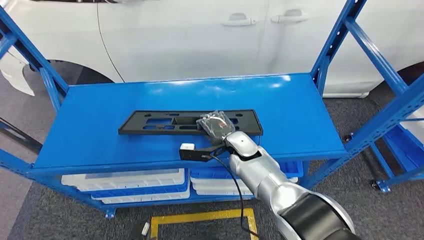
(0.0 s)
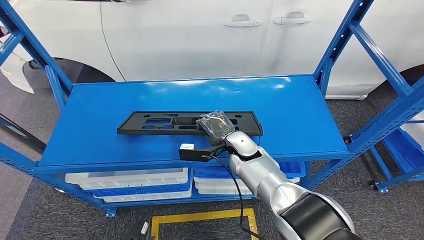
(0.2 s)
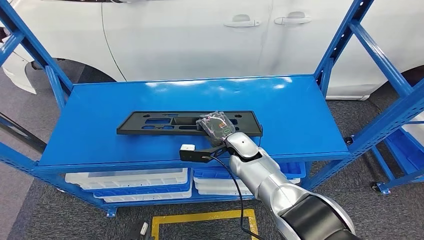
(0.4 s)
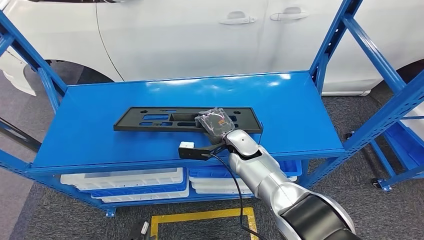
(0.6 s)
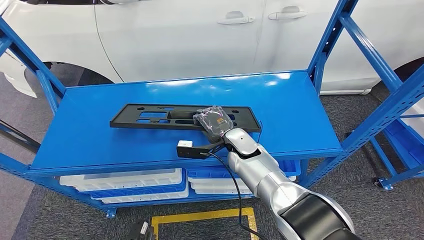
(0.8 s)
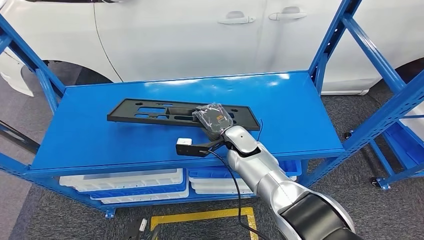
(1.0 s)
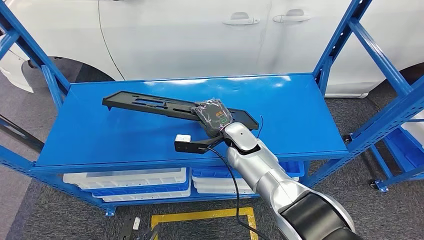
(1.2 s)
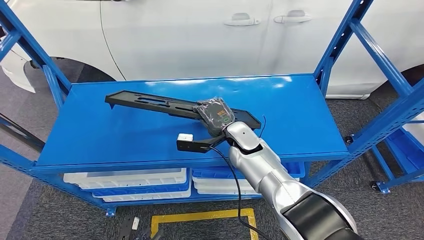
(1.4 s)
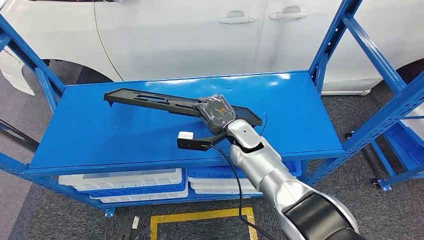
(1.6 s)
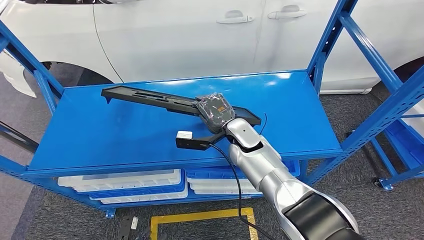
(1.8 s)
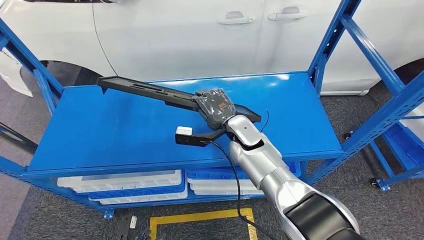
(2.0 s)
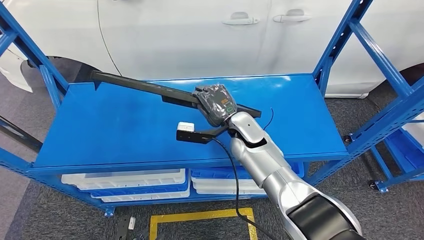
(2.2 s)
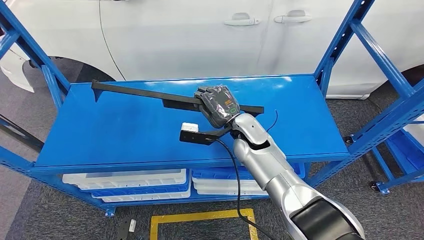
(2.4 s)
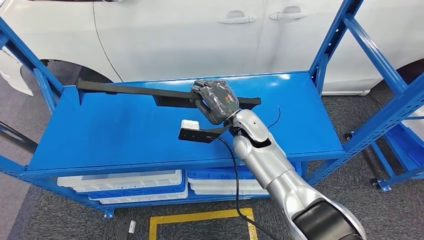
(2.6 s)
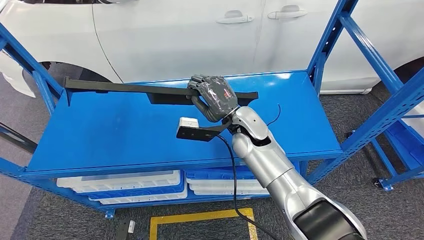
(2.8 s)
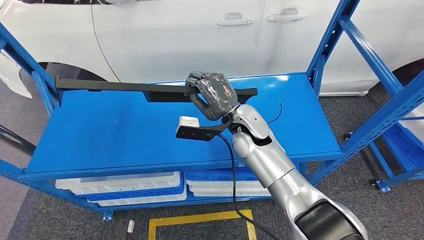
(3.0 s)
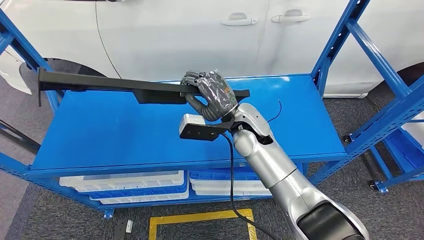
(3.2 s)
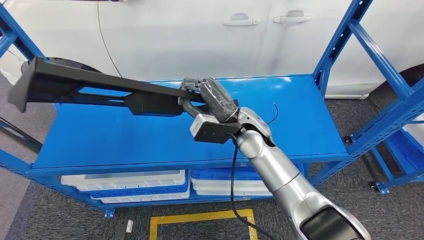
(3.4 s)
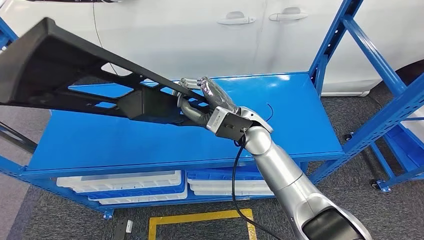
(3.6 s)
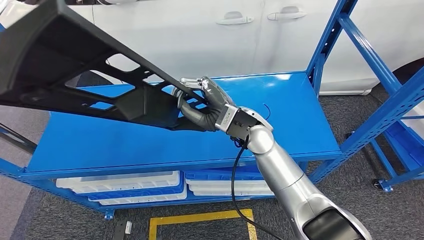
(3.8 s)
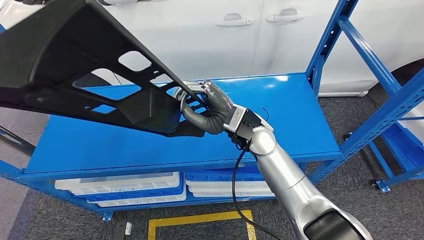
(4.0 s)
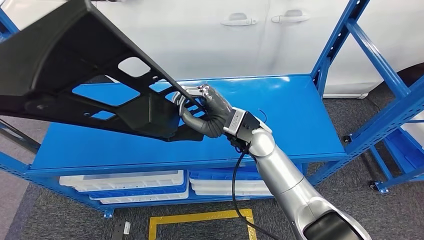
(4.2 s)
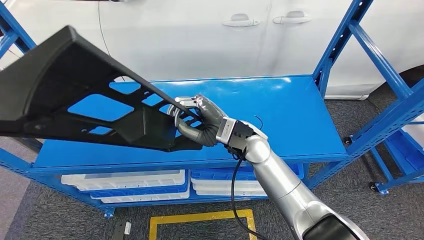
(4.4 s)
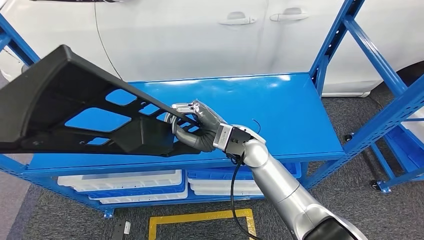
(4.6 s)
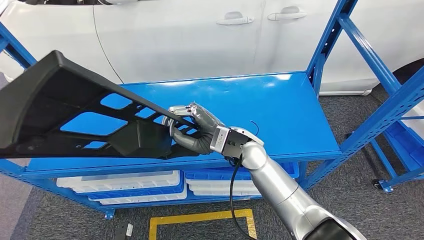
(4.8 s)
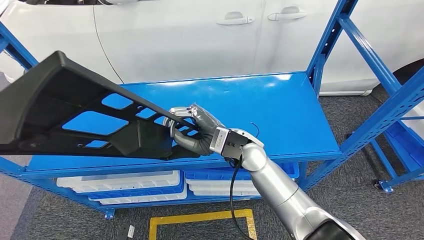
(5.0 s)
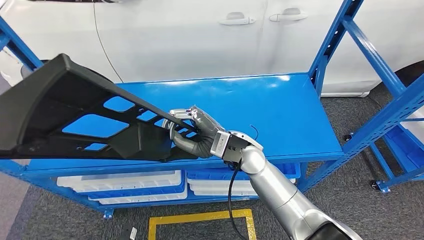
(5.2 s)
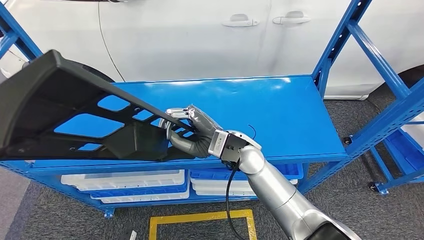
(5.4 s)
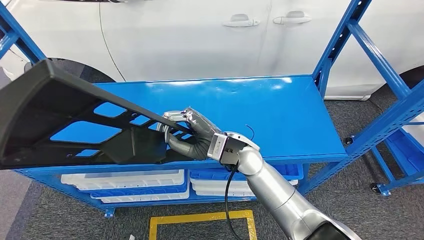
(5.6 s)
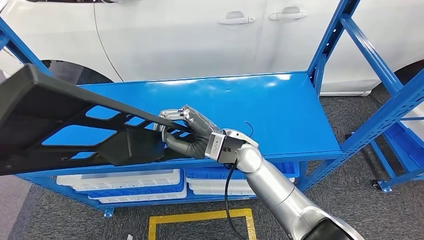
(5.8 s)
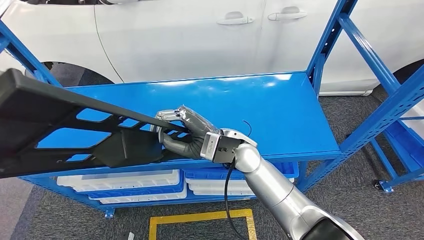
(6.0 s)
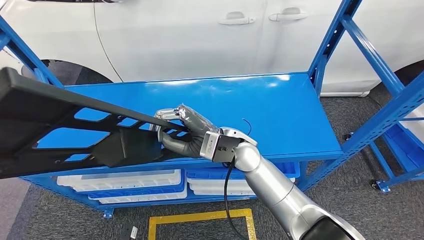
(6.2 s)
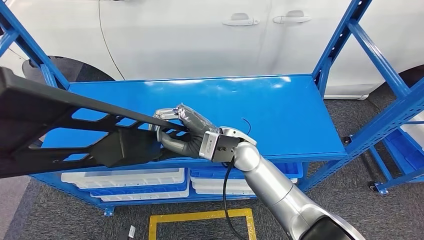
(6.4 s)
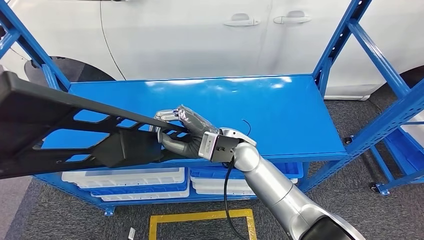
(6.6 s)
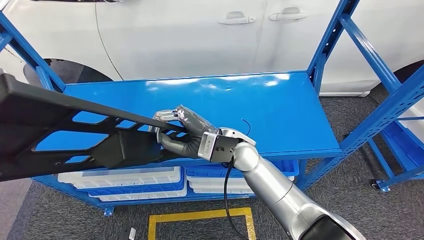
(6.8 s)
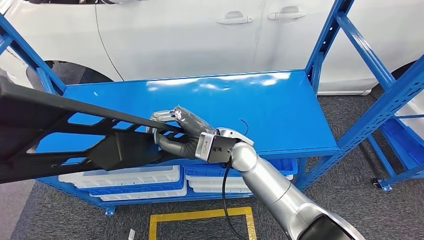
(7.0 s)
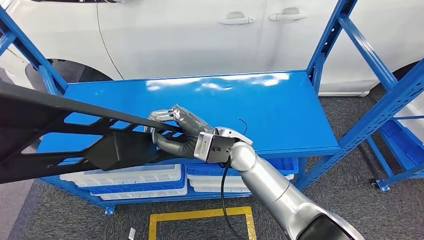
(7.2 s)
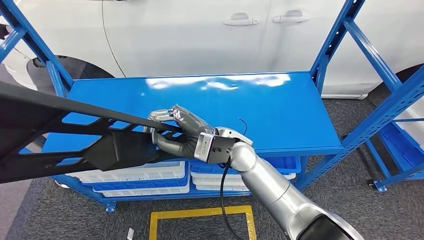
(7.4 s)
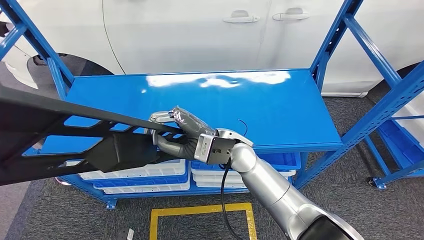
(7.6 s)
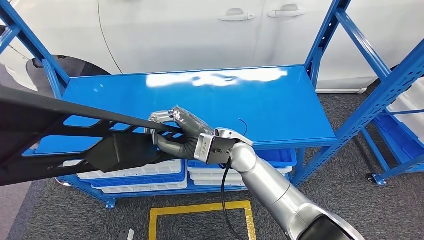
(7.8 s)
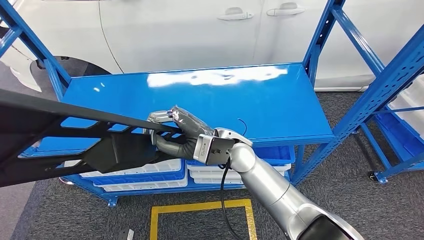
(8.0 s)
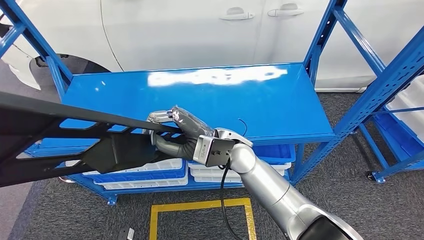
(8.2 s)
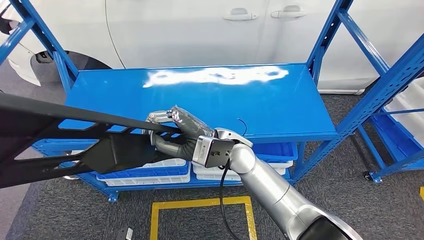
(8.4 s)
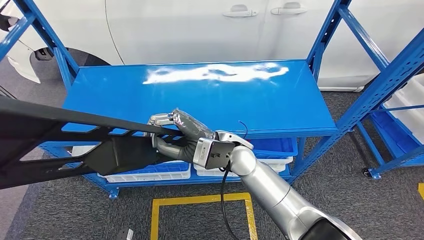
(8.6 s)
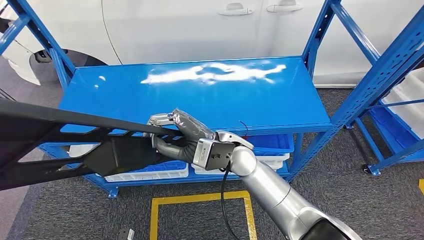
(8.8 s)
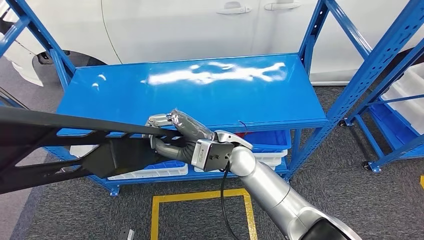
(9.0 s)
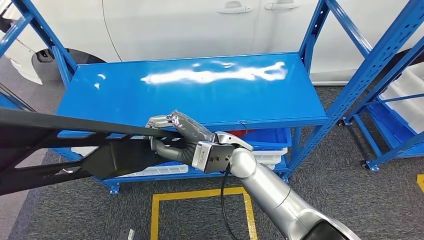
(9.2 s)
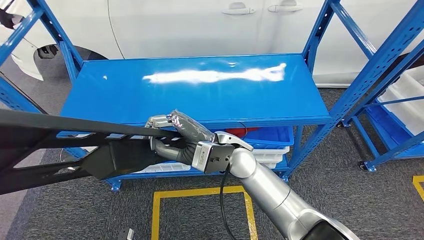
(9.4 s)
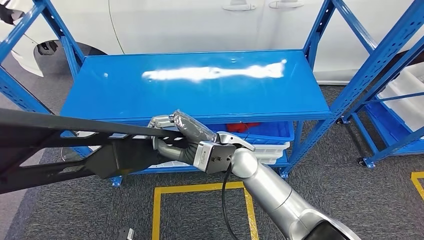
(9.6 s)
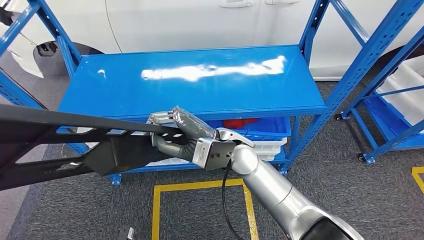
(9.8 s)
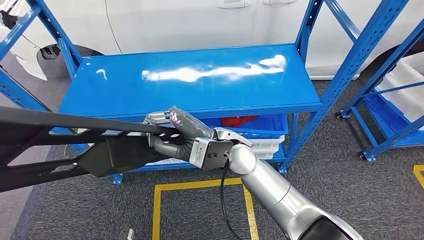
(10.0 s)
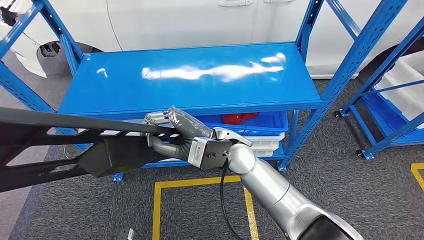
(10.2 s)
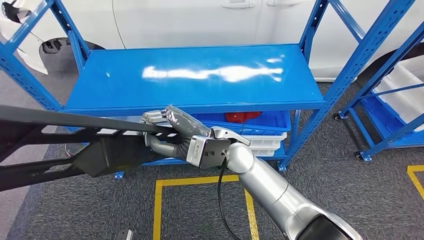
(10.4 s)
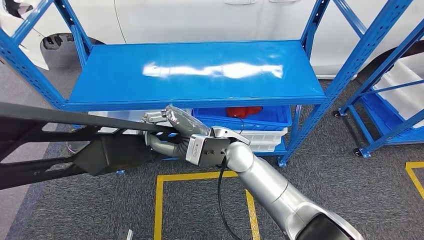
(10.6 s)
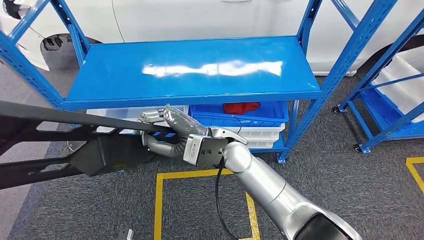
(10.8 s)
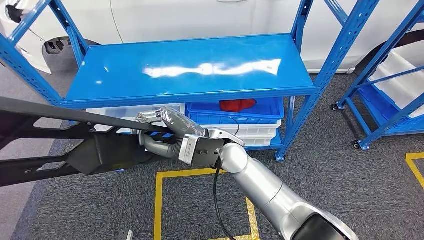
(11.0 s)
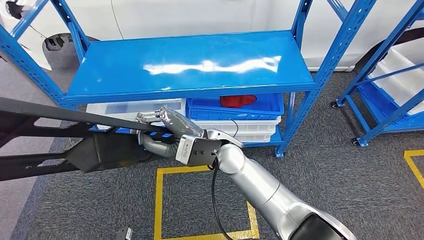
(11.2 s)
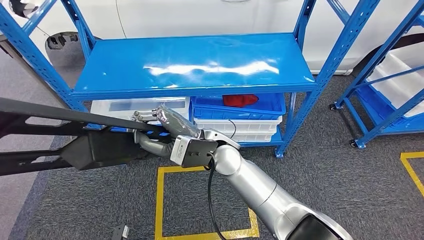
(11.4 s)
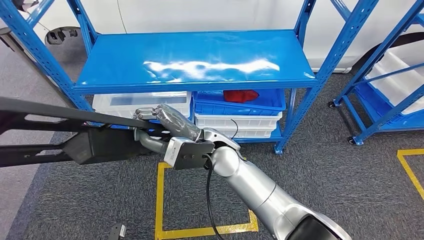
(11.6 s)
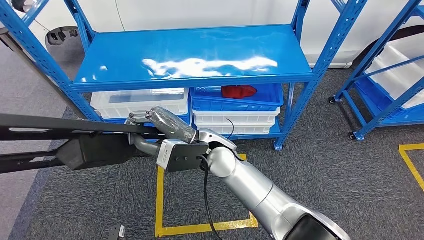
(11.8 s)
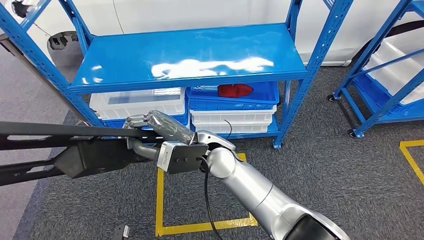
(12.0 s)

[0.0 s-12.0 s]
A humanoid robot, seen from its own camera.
Step, 0.0 to 3.2 s: Pick up the small component from the shelf.

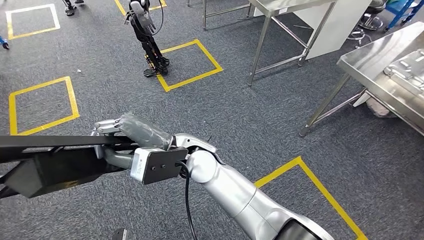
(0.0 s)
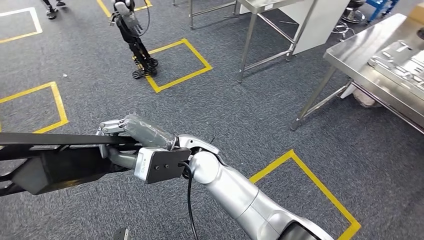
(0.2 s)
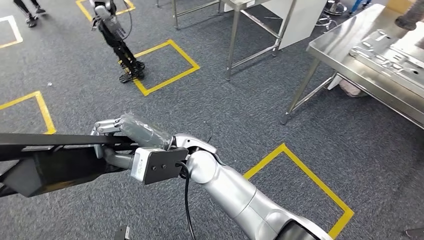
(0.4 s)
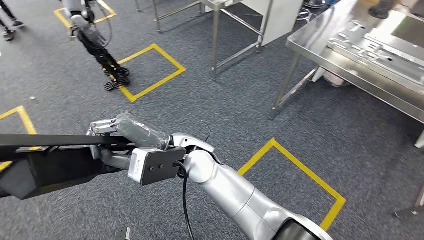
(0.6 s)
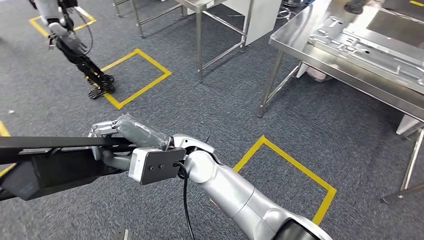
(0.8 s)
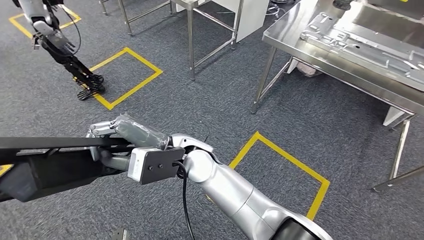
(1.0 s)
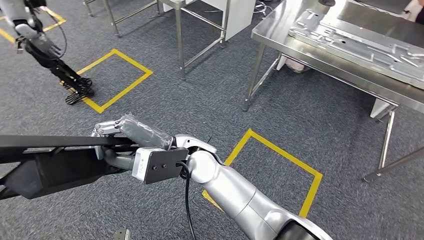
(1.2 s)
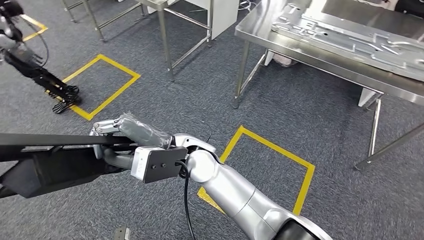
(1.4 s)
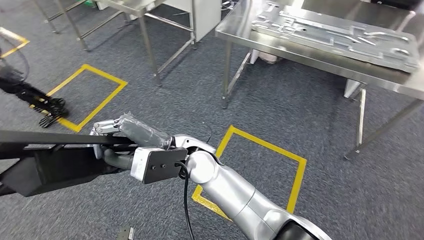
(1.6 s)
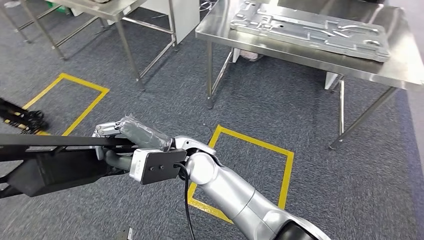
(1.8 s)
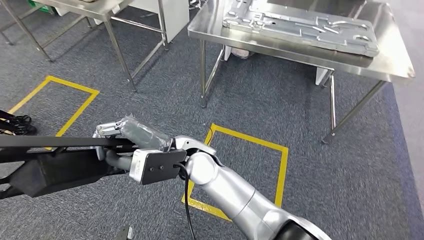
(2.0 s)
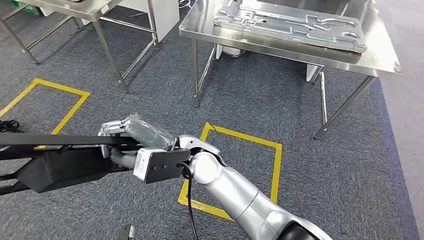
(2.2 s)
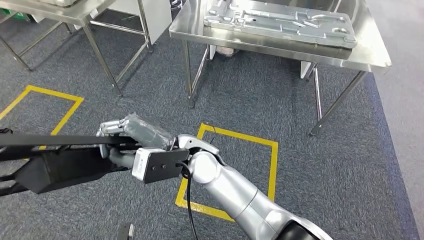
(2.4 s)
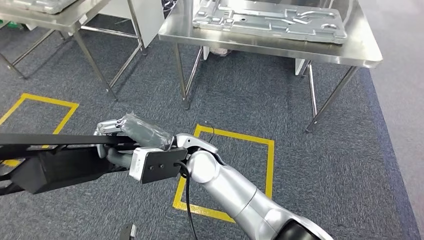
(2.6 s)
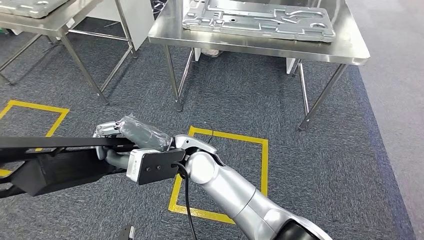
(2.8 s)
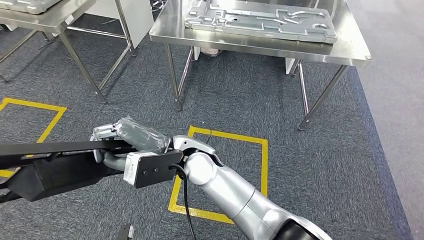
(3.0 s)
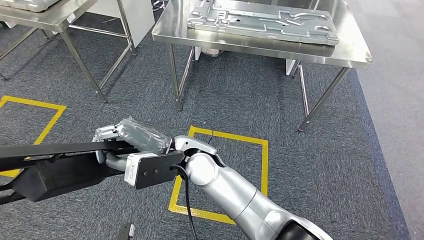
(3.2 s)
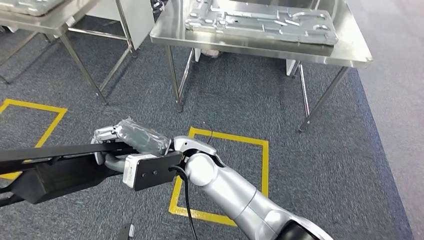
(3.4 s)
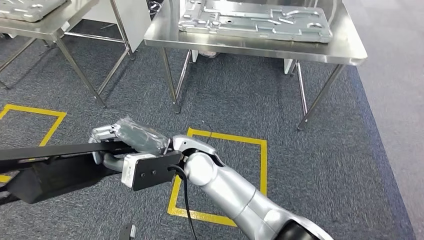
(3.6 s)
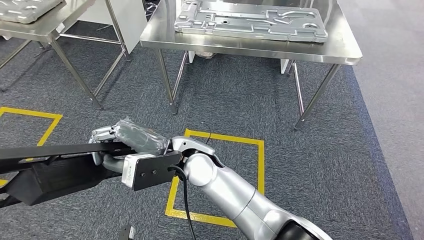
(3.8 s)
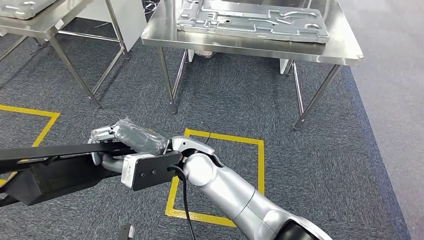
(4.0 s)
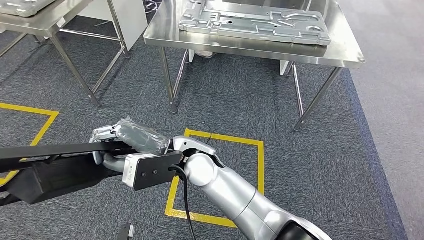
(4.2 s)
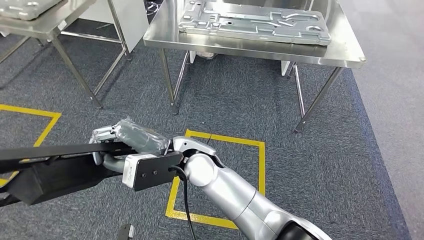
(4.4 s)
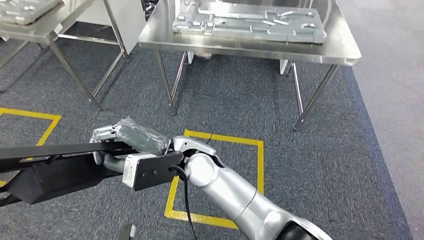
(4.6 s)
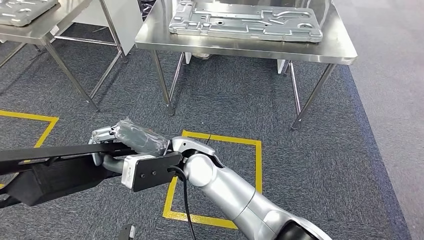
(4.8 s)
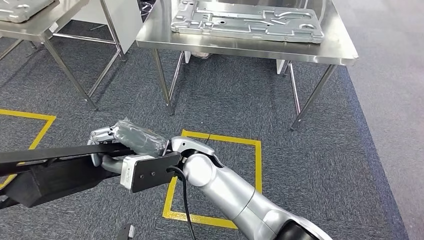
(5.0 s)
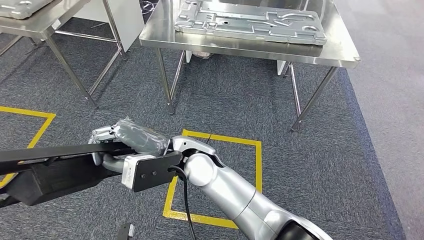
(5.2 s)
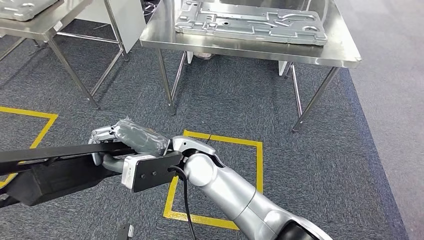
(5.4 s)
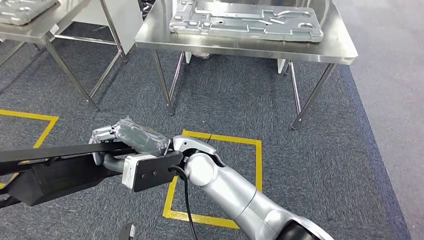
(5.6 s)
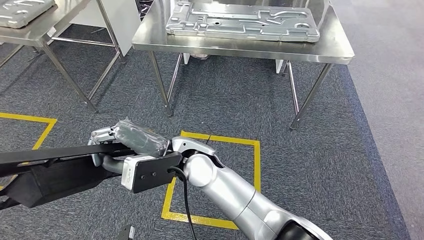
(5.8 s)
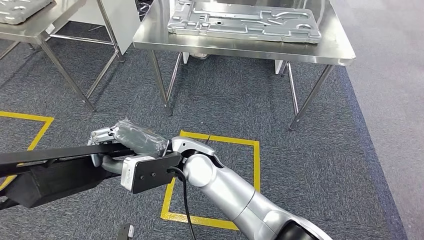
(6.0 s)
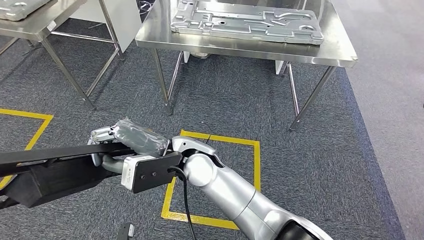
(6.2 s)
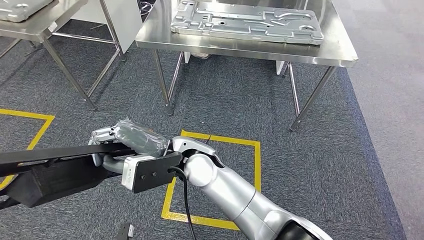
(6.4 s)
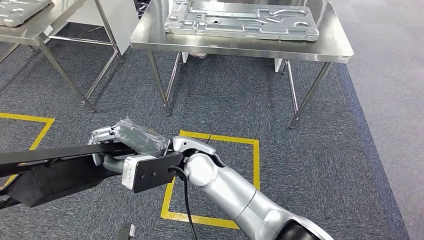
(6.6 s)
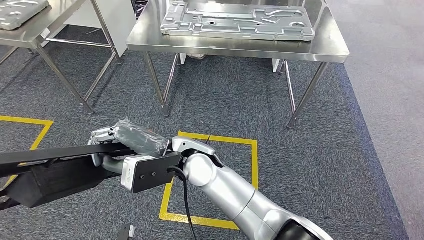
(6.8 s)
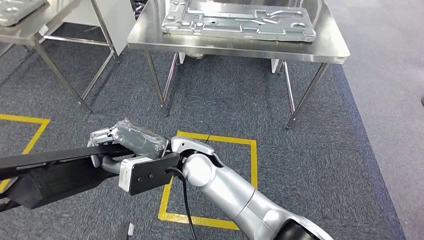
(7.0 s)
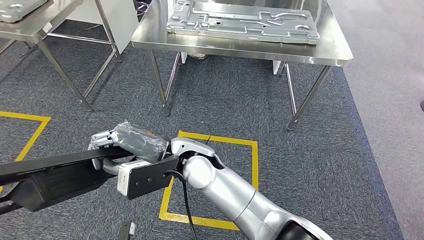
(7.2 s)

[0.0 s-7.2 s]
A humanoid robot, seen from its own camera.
4.4 to 7.2 s: Both hands stay about where they are.
